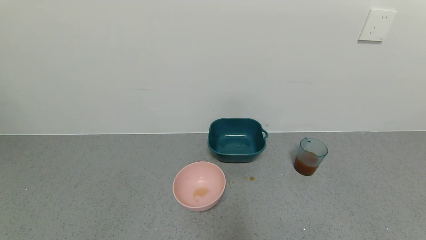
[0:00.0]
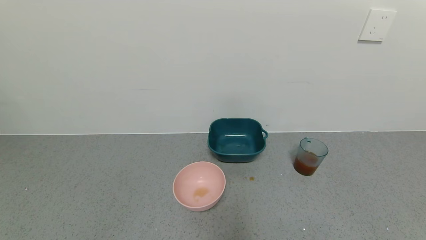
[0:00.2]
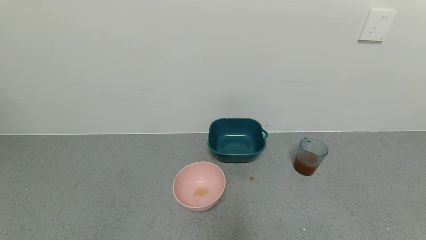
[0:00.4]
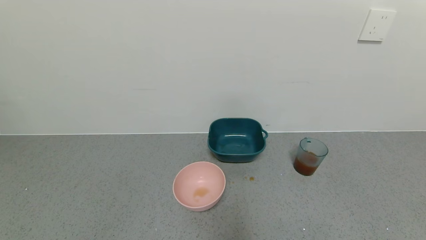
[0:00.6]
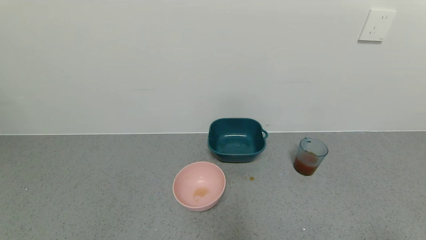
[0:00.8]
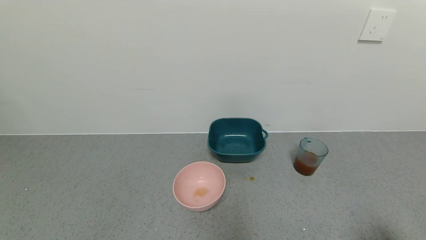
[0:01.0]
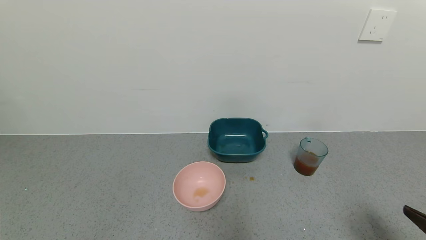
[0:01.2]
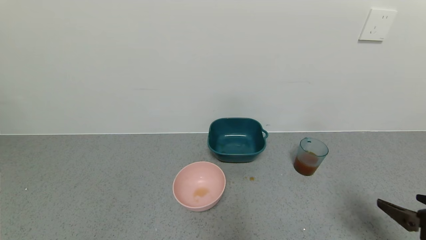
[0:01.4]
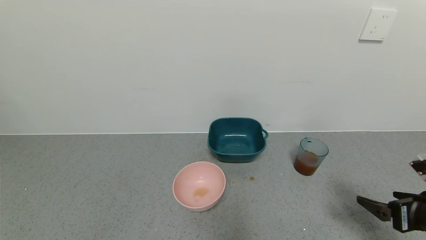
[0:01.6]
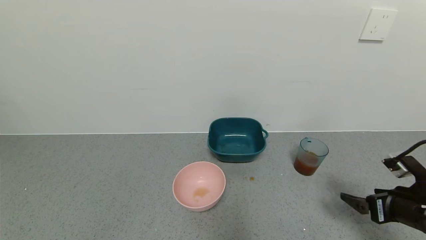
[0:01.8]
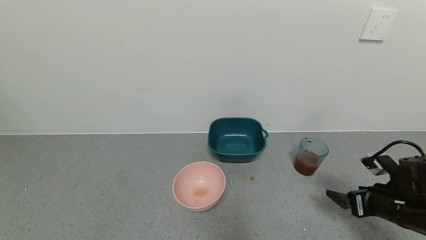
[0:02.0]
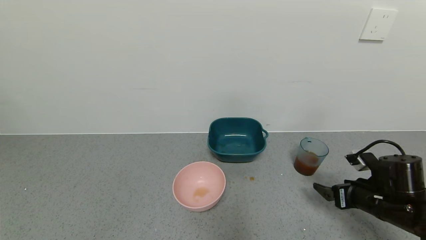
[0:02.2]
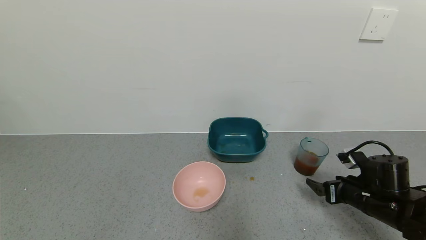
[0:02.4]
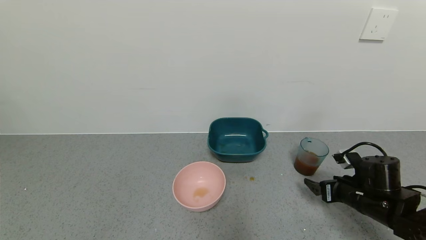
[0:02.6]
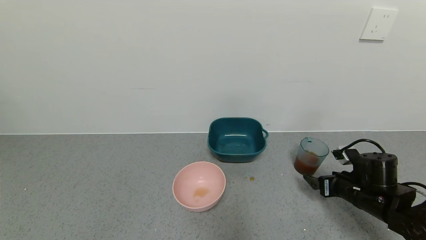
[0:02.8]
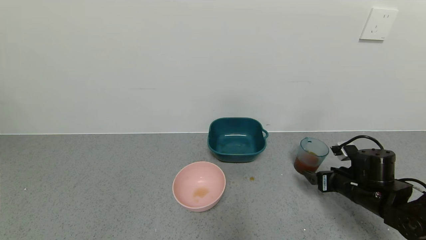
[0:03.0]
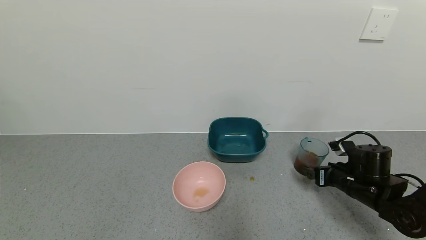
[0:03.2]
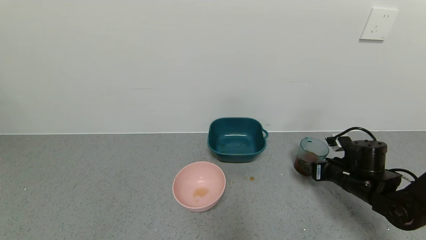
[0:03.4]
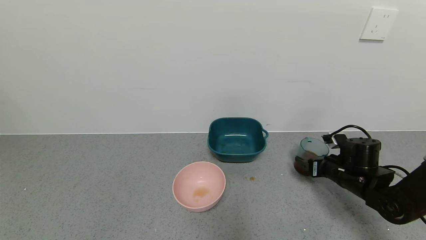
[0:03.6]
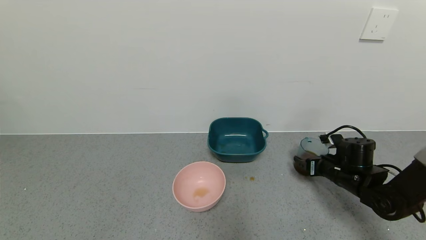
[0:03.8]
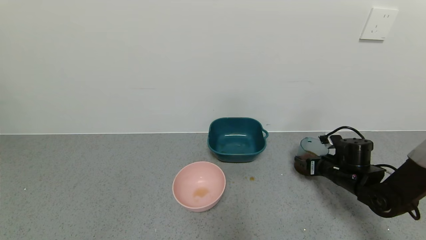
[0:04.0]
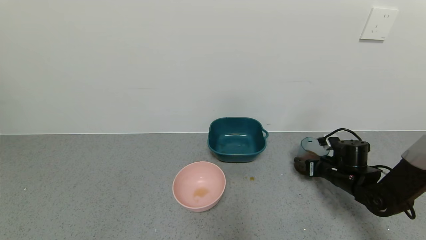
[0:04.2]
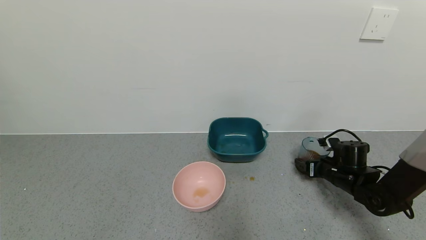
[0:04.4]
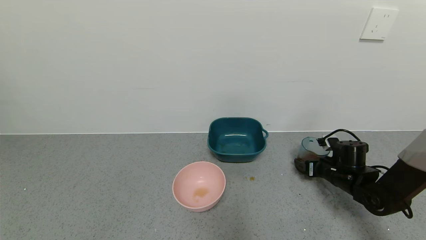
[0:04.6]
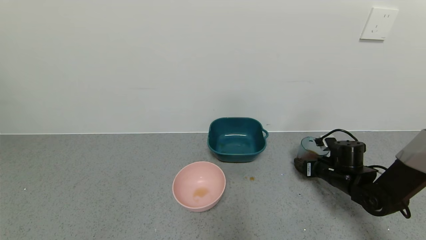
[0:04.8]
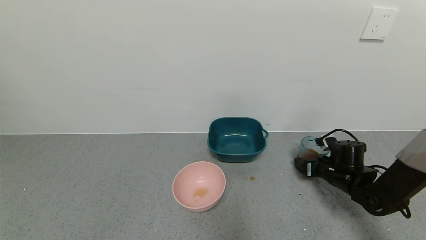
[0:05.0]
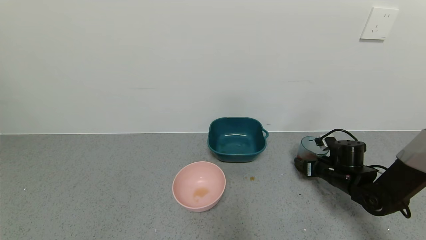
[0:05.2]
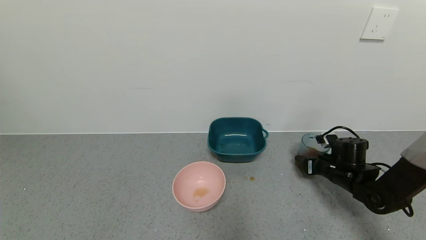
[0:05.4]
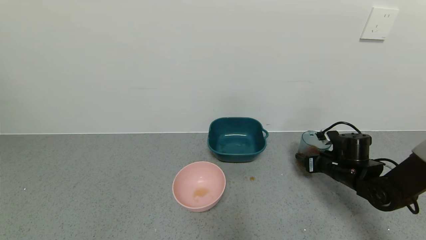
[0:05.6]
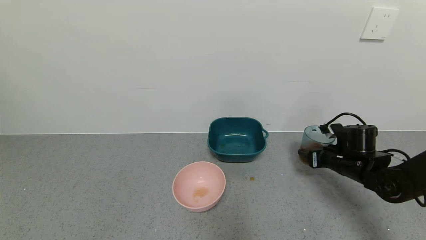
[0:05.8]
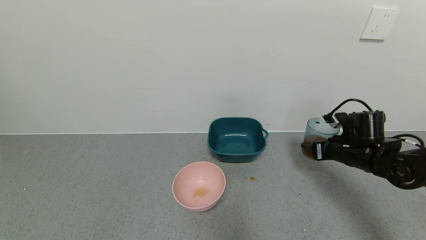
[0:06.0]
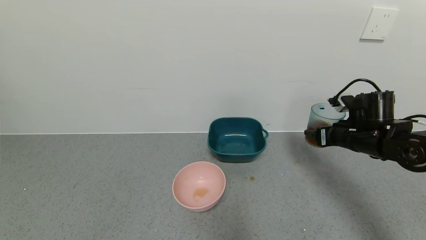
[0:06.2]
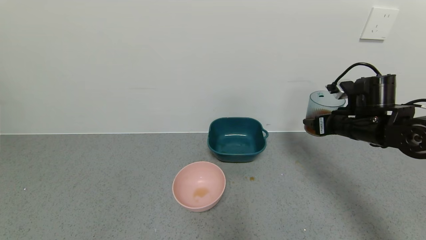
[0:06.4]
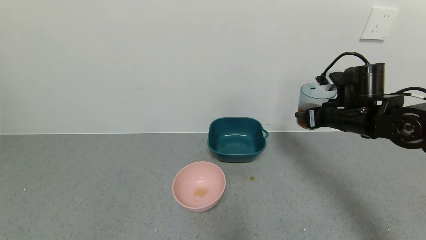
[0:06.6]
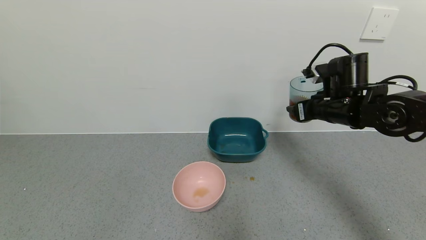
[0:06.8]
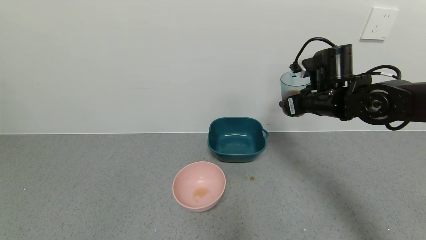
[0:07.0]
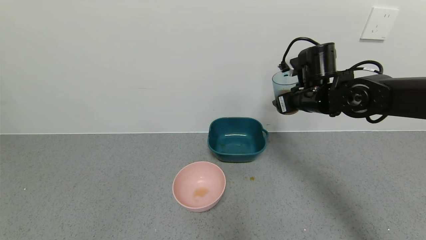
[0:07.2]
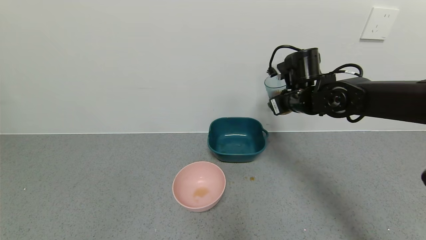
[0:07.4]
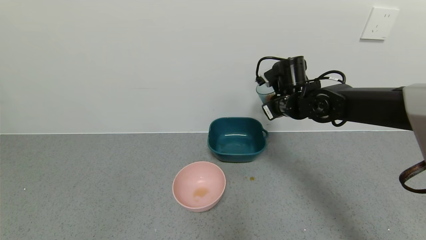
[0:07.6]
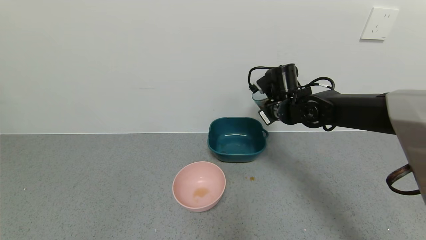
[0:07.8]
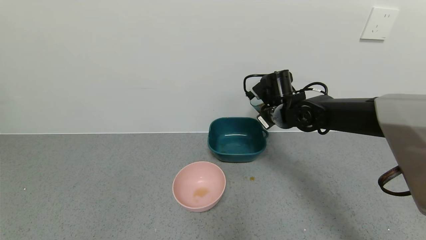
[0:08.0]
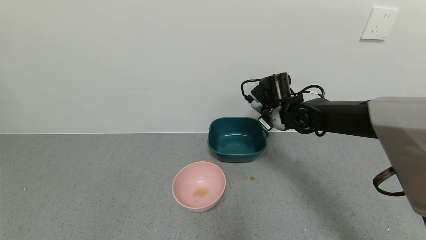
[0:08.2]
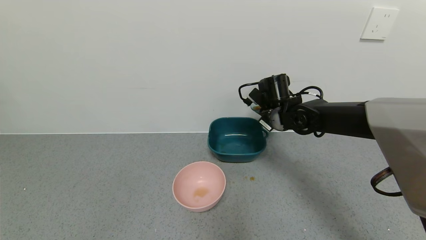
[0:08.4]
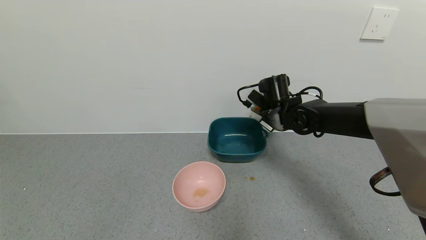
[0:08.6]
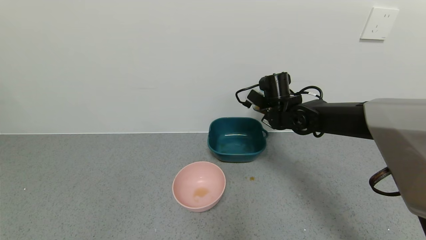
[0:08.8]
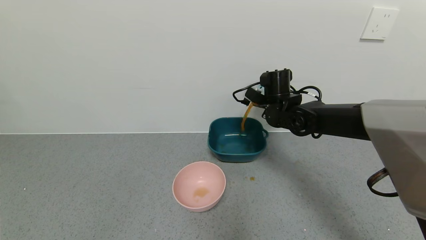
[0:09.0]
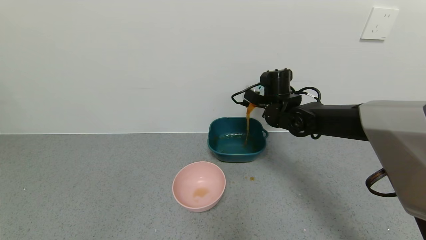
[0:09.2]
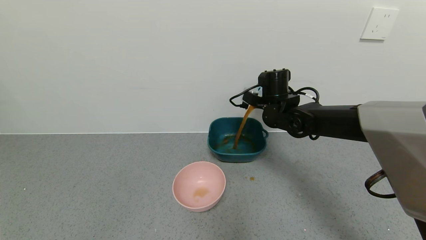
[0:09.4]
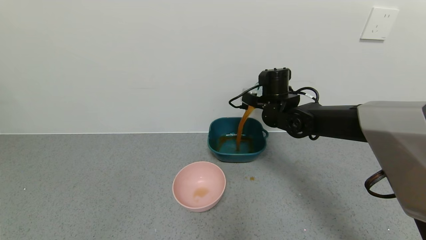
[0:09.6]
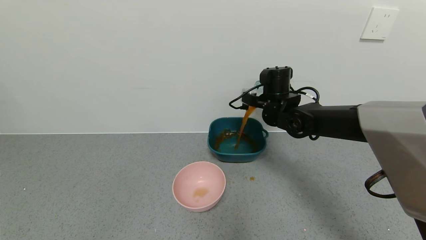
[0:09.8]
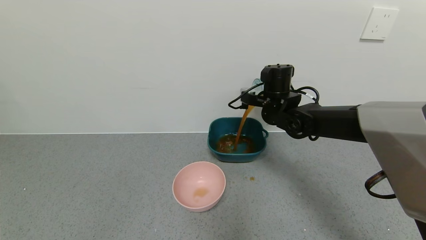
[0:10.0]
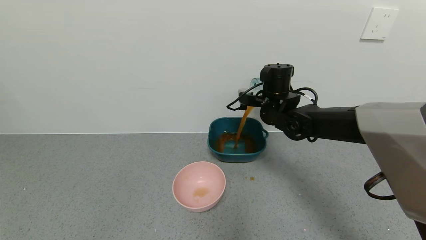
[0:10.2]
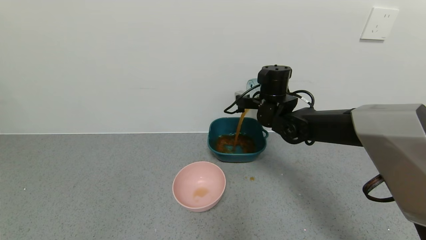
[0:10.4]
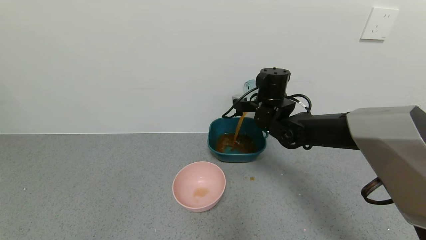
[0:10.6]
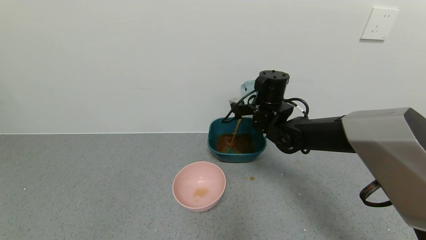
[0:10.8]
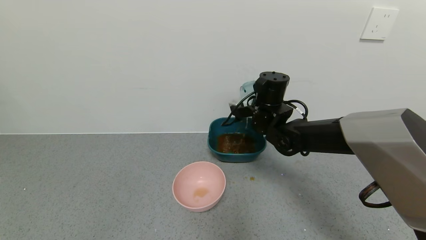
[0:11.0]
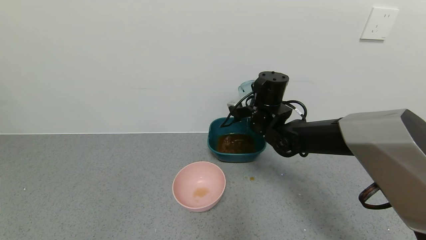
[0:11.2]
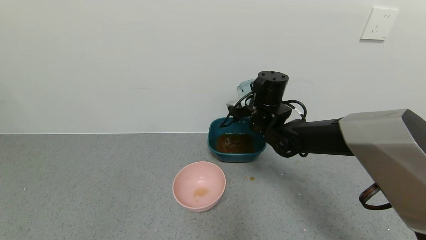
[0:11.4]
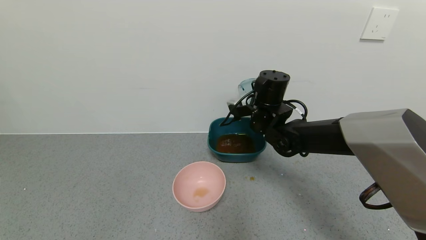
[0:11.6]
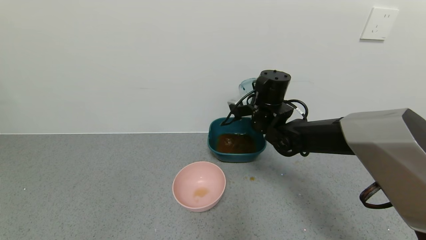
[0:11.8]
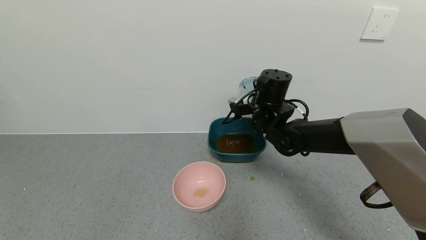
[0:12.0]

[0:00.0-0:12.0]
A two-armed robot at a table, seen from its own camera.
Task of the whole recording: use a gripper to pick up the cup and pour the liquid into a bowl or tray.
Step, 0:00.0 to 0:04.0: Pick up blue cup filled with tea with right gripper.
Step, 0:04.2 to 0:12.0: Pour the tea into the blue basin with right gripper.
0:00.0 to 0:01.6: The right gripper heads forward, covering approximately 20 cm.
0:01.6 to 0:03.0: The right gripper moves forward and downward, about 15 cm.
0:03.0 to 0:04.4: The right gripper is displaced forward by some 5 cm.
0:04.4 to 0:06.0: The right gripper goes roughly 10 cm upward, and closes up.
0:06.0 to 0:07.6: The right gripper is displaced to the left, upward and forward by some 20 cm.
0:10.4 to 0:12.0: The grippers move only a little.

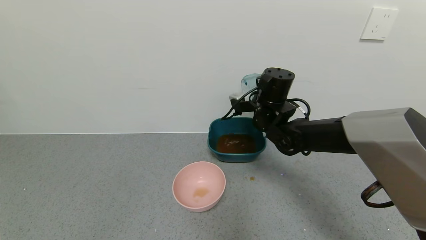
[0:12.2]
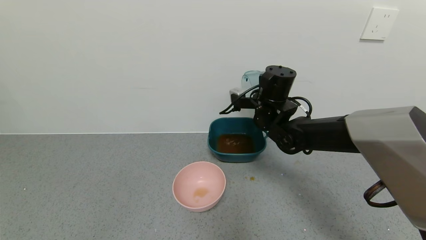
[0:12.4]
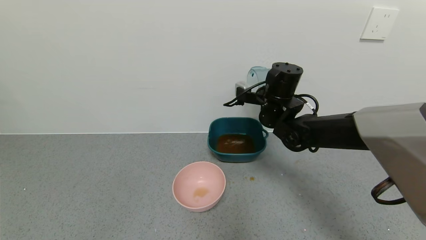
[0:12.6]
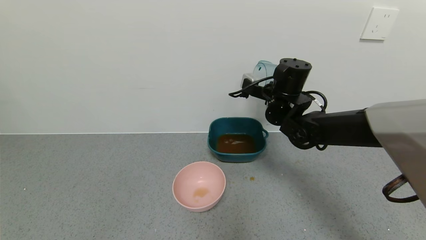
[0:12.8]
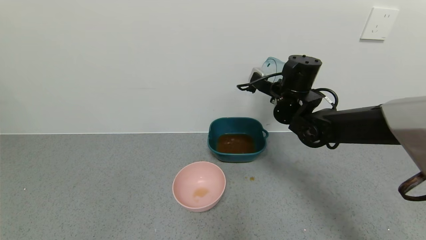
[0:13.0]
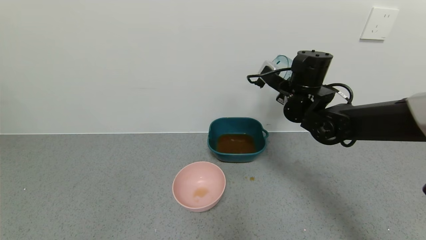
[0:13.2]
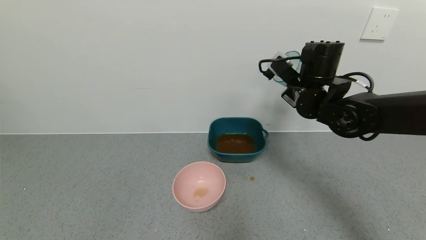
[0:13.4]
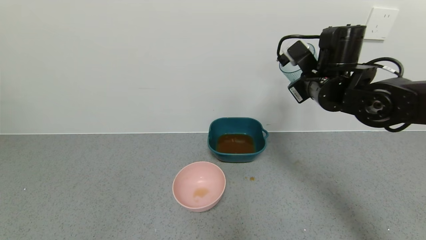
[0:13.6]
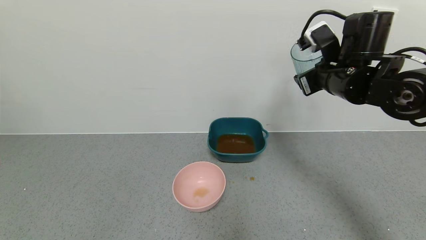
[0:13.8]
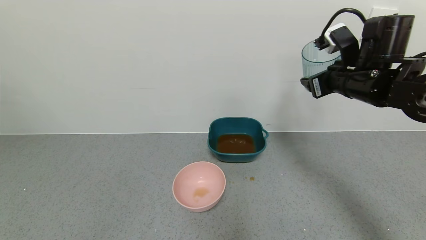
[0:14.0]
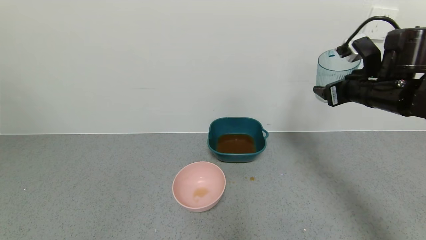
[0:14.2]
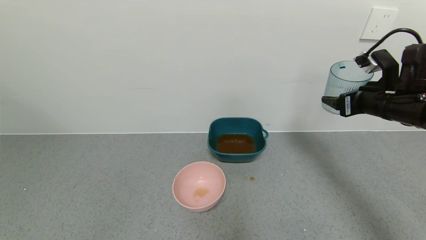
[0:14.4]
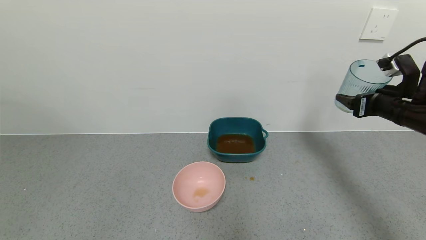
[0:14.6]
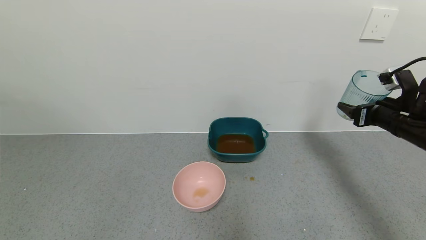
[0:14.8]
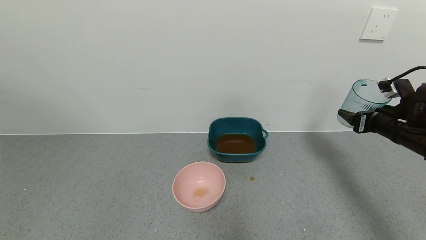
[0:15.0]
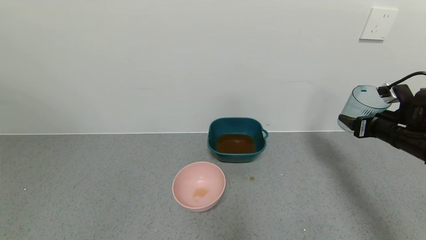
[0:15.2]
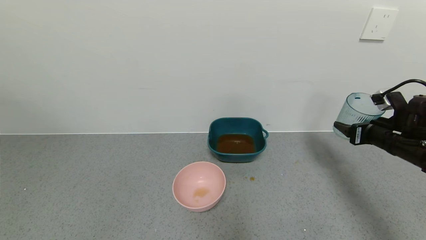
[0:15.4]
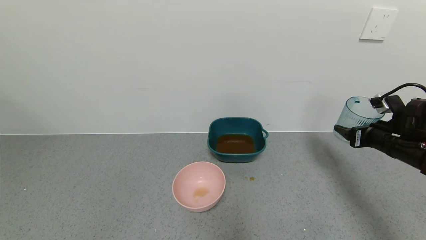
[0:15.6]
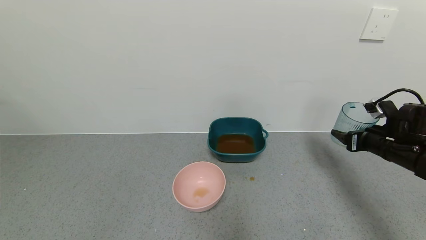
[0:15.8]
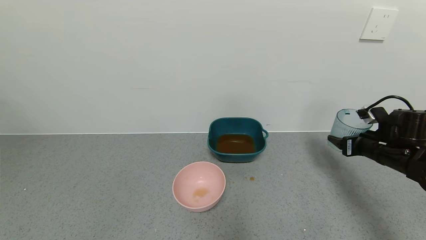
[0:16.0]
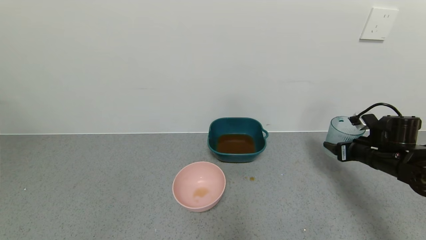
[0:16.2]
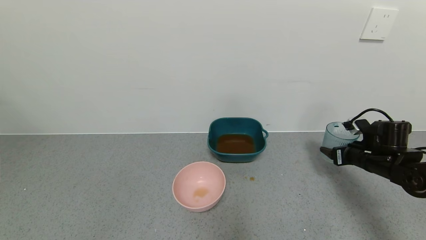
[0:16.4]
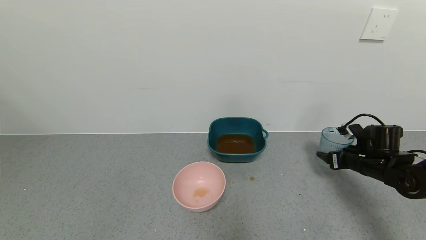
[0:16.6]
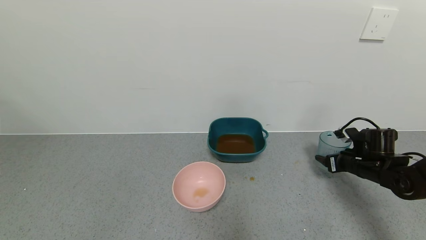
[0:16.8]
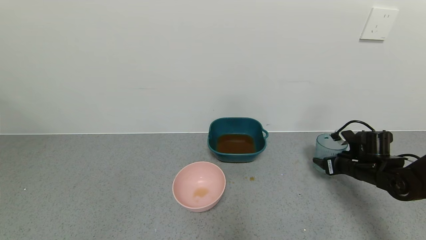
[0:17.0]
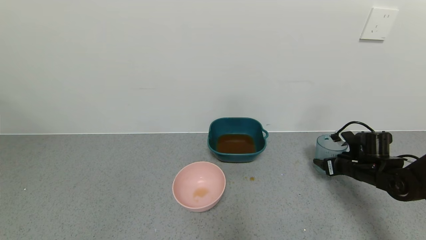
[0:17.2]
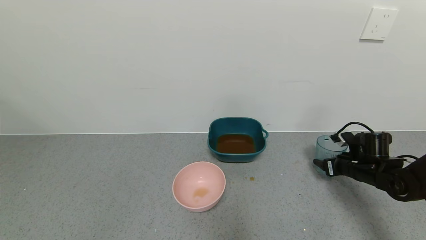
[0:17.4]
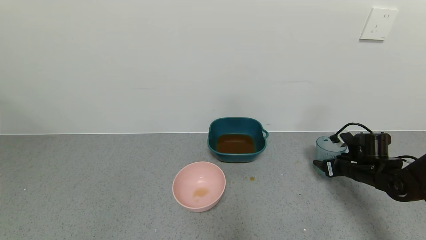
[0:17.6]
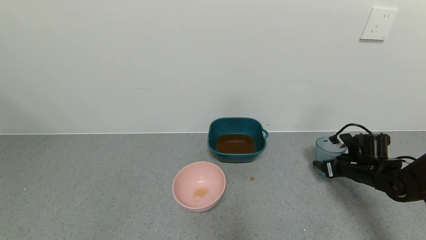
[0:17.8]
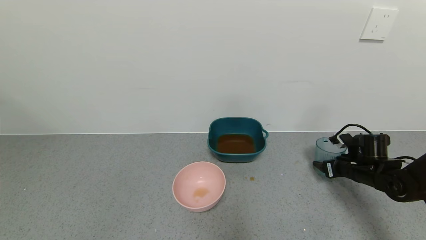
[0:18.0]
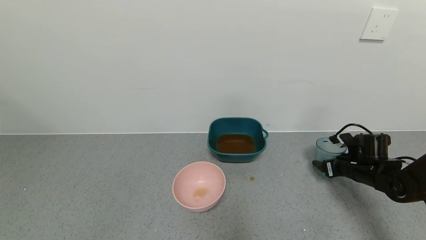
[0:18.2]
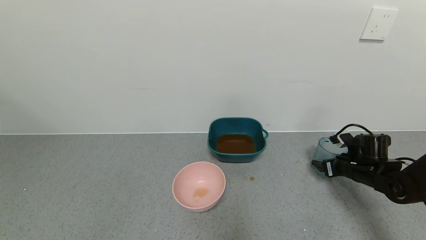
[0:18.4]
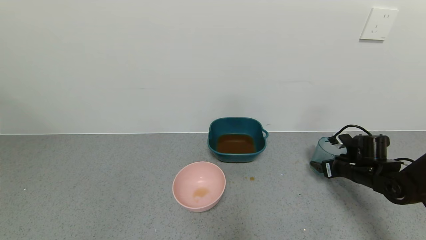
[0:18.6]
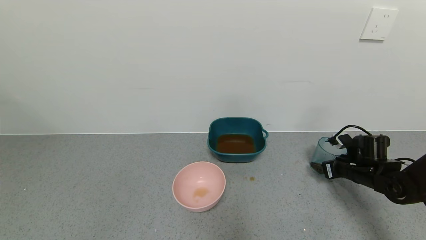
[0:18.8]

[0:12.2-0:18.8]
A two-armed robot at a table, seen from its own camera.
Task of the whole recording: use a gripper to pick up the cup and pour the liquid into a bowl or tray.
Step, 0:12.2 to 0:18.8: Place blue cup with tea on the table with right gripper.
0:12.2 to 0:13.8: The right gripper shifts roughly 15 cm to the right, upward and backward.
0:13.8 to 0:15.4: The right gripper shifts some 20 cm to the right and downward.
0:15.4 to 0:17.2: The right gripper travels downward by approximately 10 cm.
0:17.2 to 0:18.8: The right gripper opens up.
